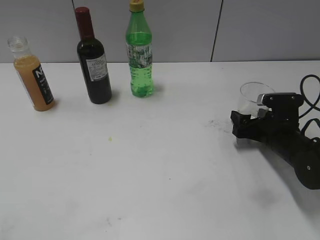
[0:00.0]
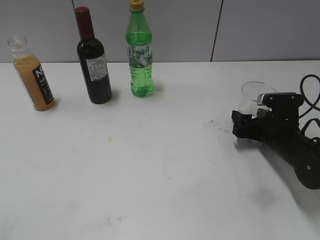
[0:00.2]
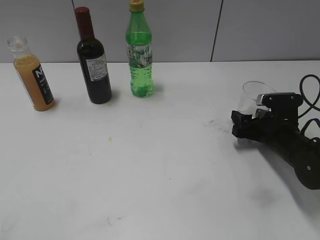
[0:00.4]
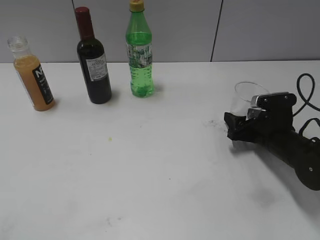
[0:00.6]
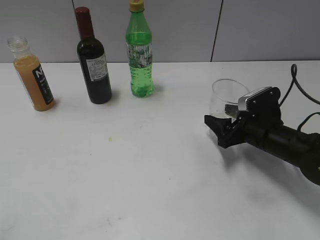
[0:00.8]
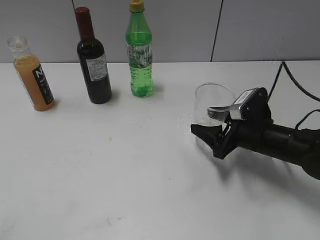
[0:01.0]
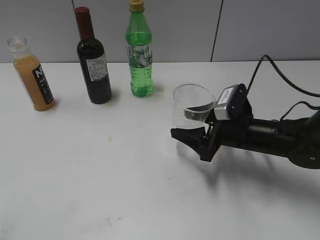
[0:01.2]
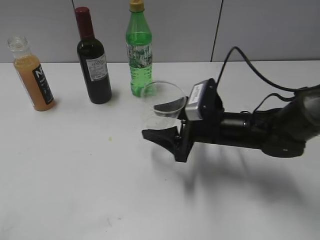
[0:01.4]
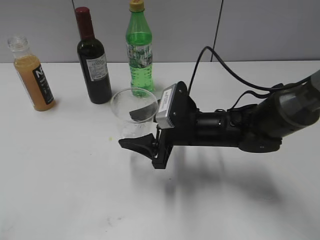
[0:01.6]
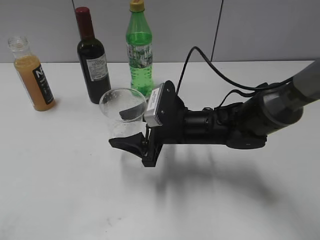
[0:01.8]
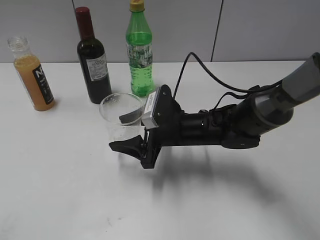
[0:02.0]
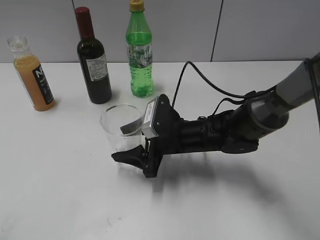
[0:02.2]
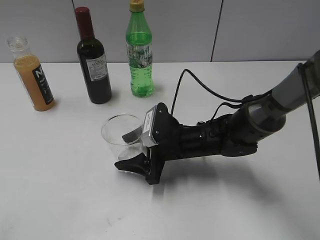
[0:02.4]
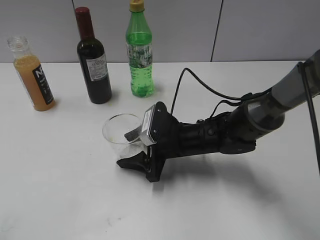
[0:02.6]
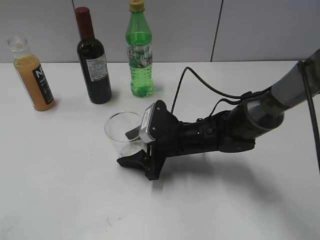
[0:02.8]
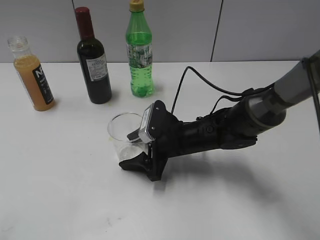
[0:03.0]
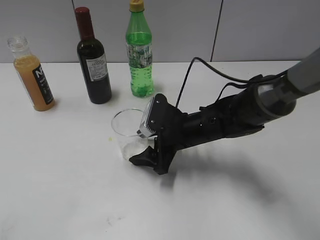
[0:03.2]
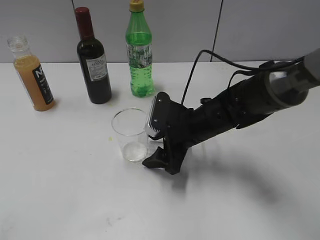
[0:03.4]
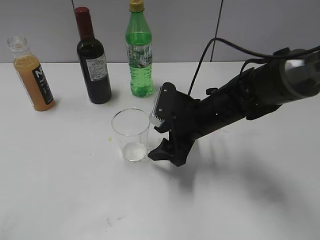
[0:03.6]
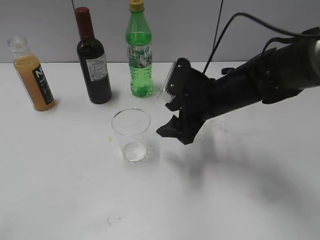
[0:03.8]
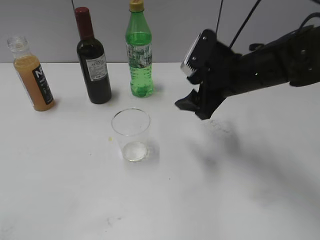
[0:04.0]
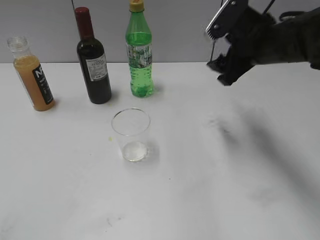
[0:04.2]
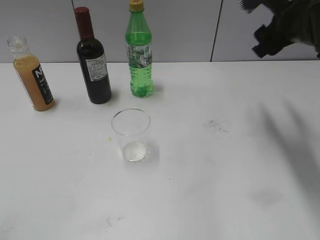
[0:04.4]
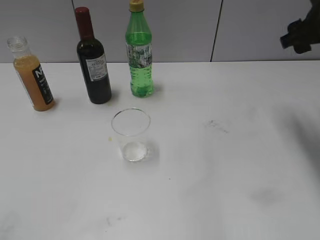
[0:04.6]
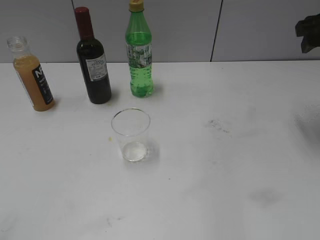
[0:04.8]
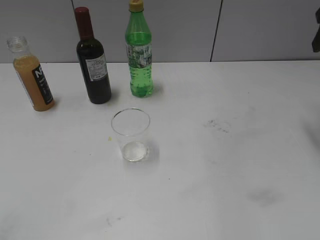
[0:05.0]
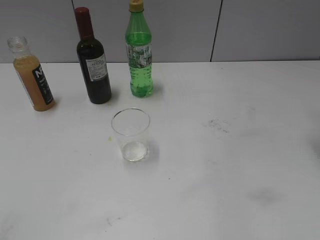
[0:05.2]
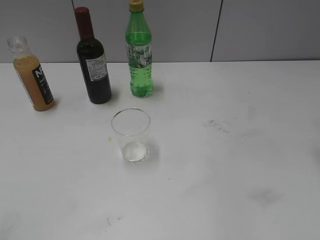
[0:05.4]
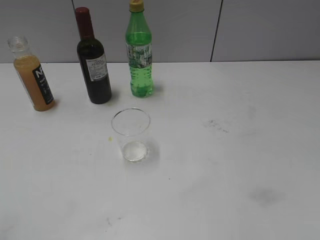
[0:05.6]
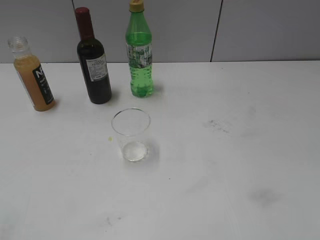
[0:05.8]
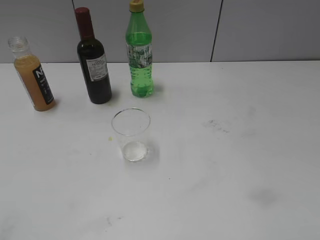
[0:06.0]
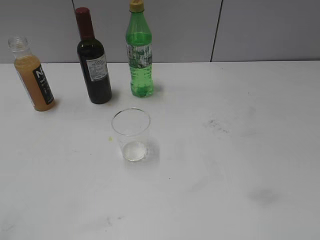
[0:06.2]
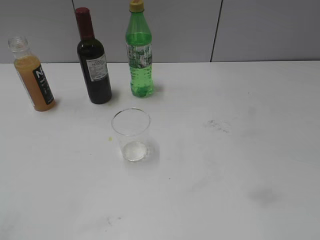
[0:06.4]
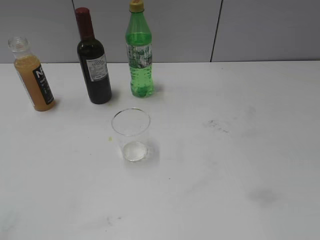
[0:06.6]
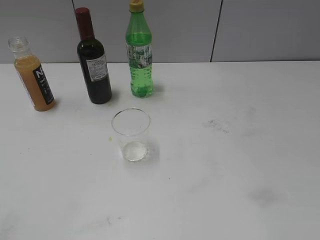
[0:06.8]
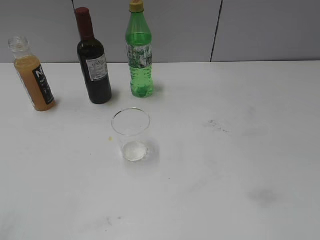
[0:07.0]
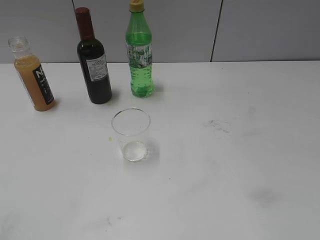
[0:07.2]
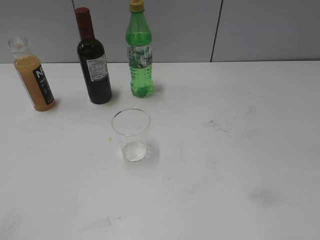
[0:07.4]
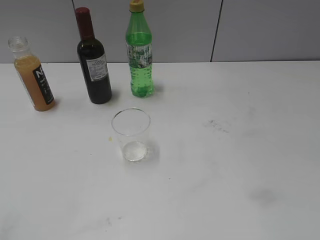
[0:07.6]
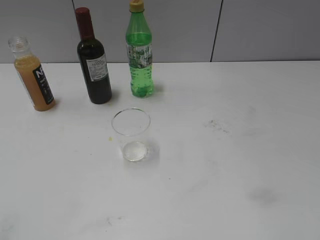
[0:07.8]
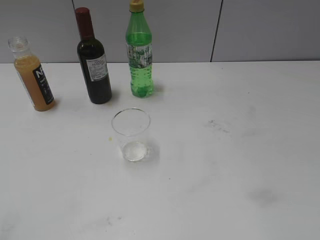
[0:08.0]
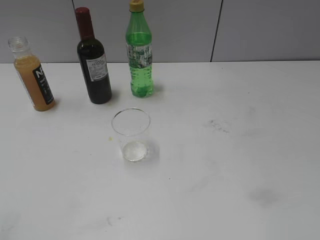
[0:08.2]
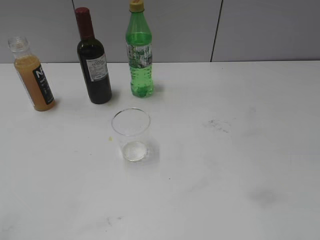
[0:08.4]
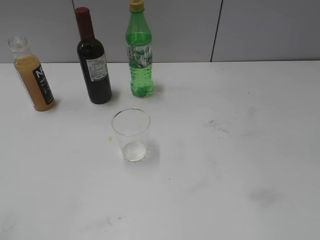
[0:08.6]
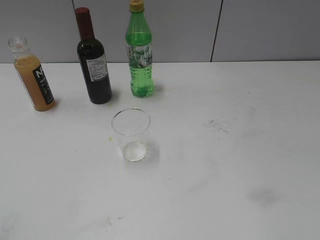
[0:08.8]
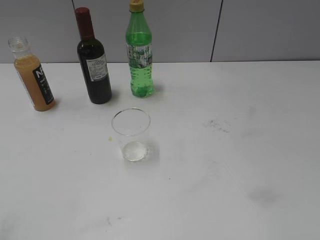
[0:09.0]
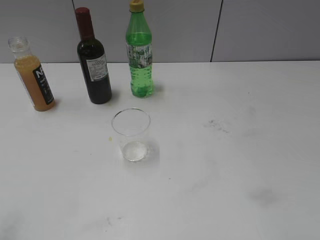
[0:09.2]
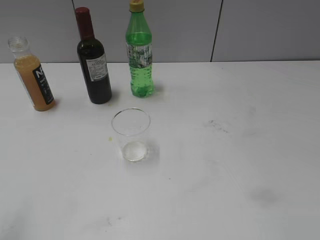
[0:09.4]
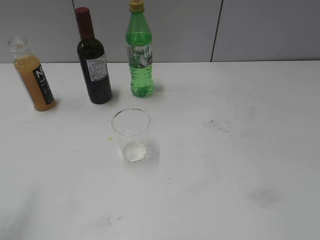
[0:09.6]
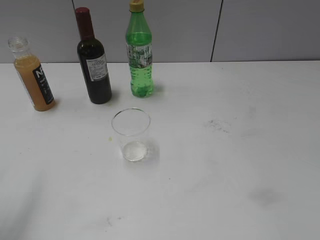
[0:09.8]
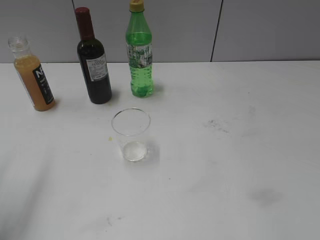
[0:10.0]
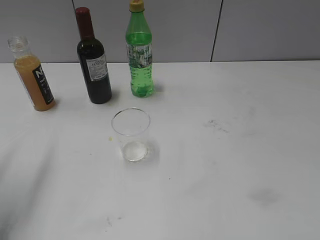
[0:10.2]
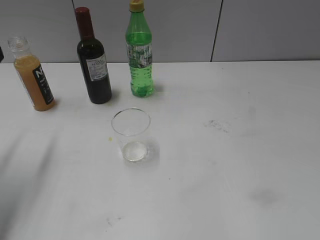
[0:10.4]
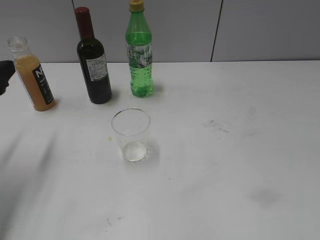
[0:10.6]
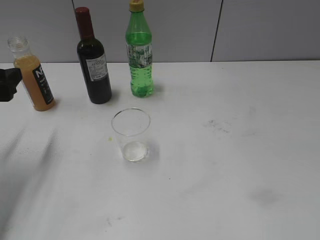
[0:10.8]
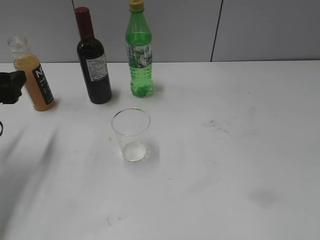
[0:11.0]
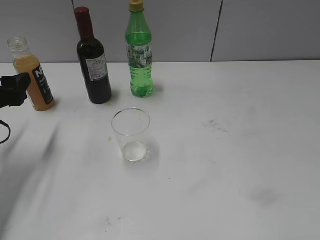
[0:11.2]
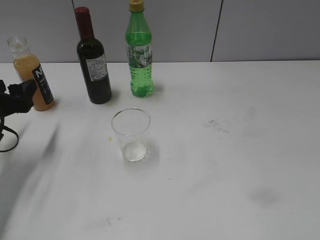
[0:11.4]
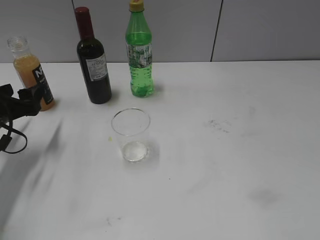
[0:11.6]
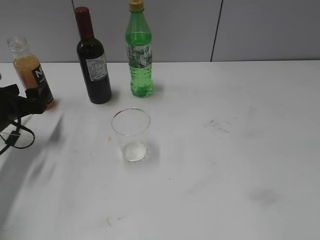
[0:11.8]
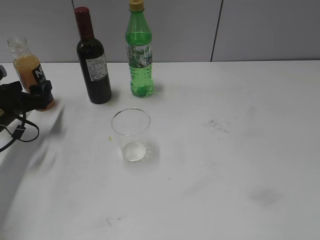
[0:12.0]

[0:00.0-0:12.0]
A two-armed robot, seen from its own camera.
Step, 0:00.4 to 0:03.4: Place the transparent cup on the table with right gripper.
0:00.0 to 0:01.6: The right gripper heads to the left, covering approximately 15 cm, and closes up.
0:01.6 to 0:03.0: The right gripper ends up some 5 cm from where it was, and opens up.
0:03.0 to 0:04.4: The right gripper is displaced upward and to the right by some 25 cm.
0:04.4 to 0:06.0: The right gripper is displaced backward and to the right by some 25 cm.
0:09.0 to 0:10.4: The left gripper goes roughly 20 cm forward.
0:10.4 to 0:12.0: The left gripper travels downward and forward by about 20 cm.

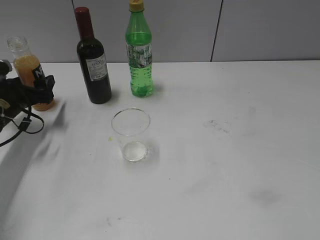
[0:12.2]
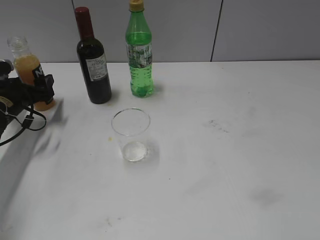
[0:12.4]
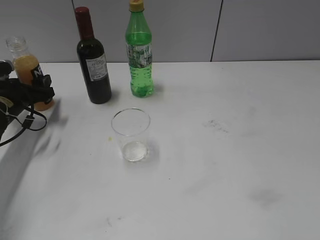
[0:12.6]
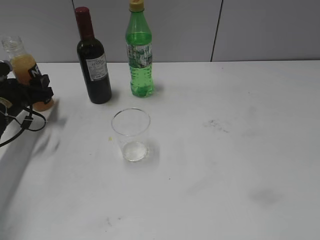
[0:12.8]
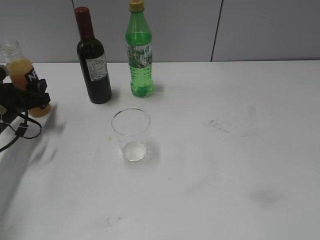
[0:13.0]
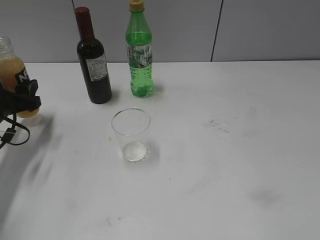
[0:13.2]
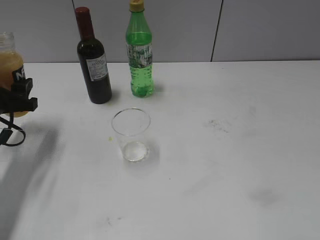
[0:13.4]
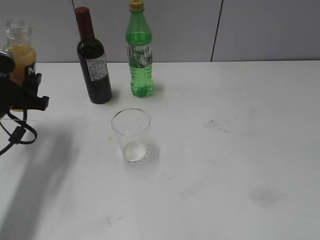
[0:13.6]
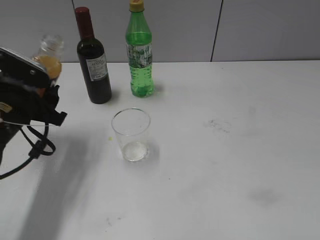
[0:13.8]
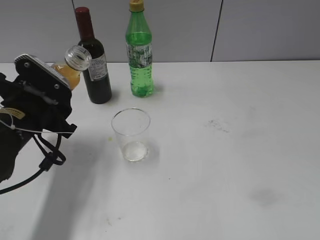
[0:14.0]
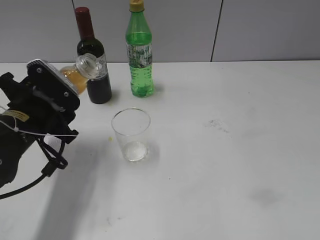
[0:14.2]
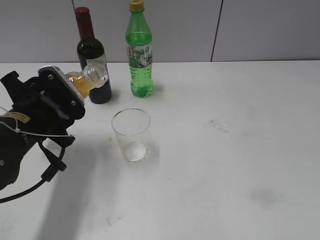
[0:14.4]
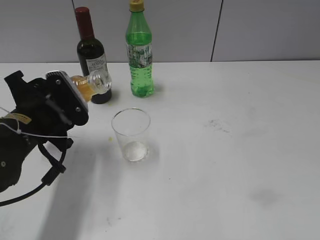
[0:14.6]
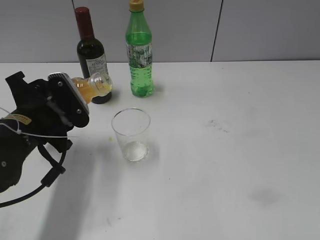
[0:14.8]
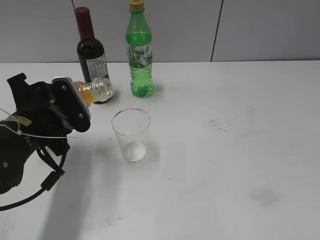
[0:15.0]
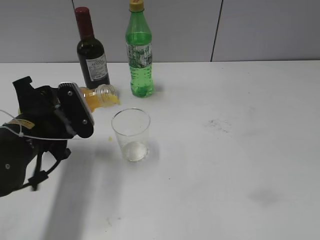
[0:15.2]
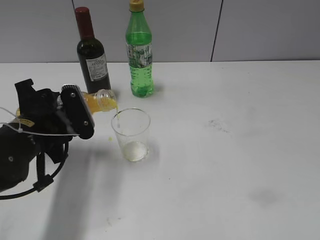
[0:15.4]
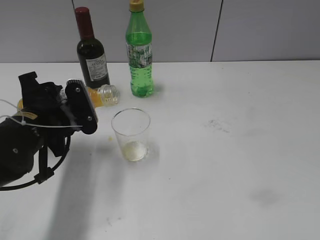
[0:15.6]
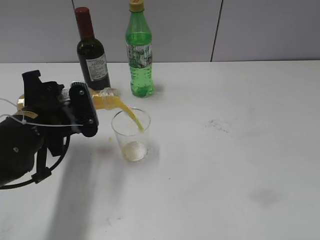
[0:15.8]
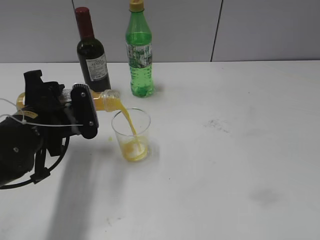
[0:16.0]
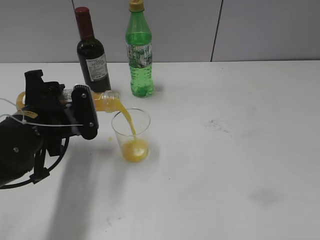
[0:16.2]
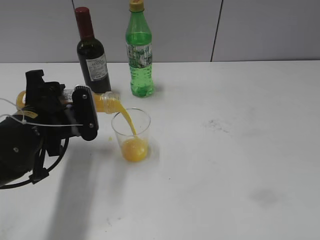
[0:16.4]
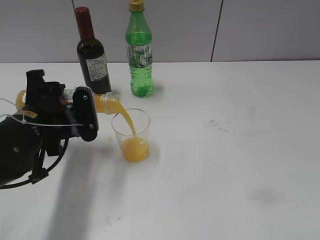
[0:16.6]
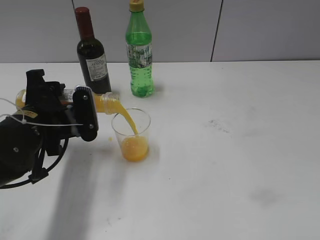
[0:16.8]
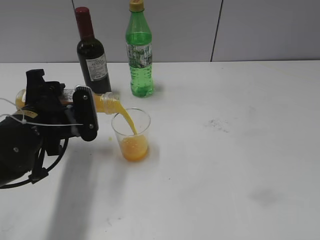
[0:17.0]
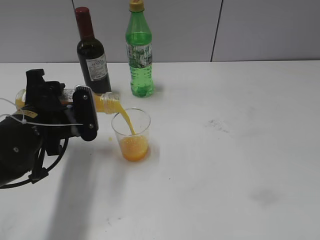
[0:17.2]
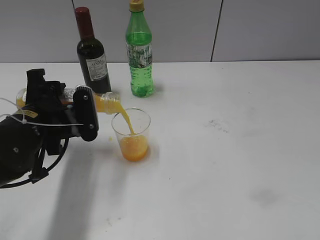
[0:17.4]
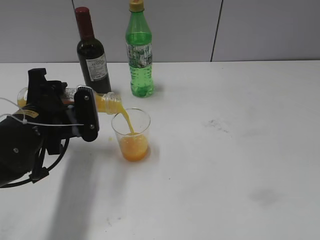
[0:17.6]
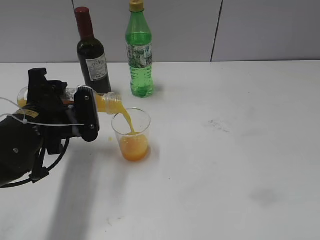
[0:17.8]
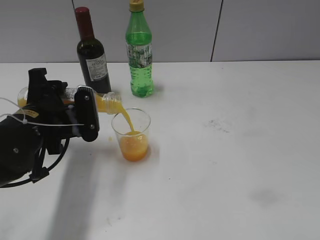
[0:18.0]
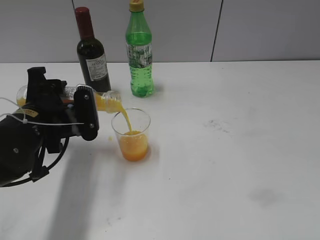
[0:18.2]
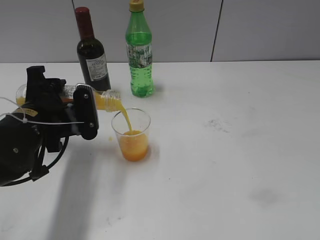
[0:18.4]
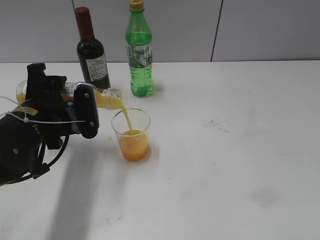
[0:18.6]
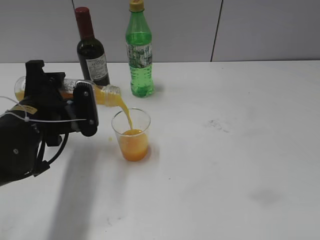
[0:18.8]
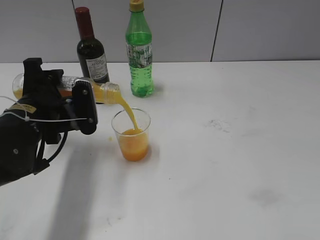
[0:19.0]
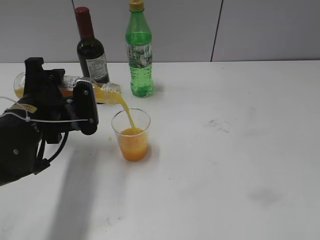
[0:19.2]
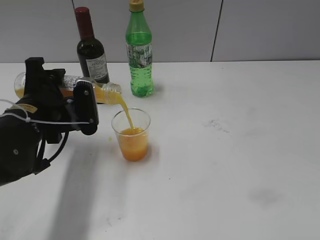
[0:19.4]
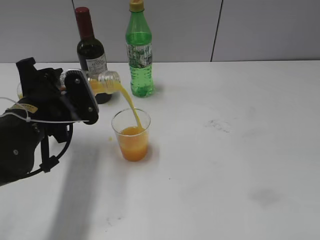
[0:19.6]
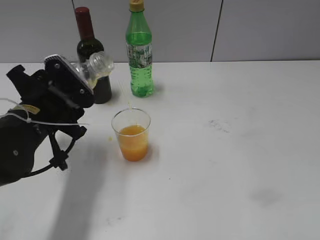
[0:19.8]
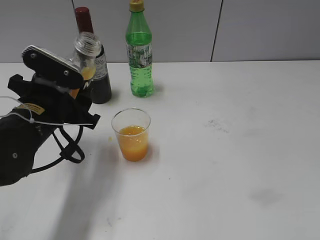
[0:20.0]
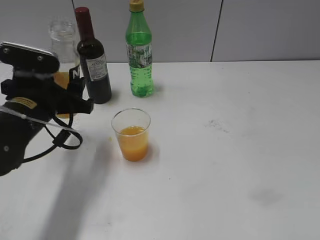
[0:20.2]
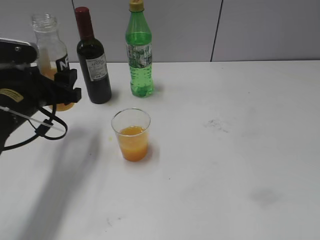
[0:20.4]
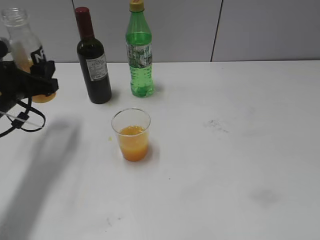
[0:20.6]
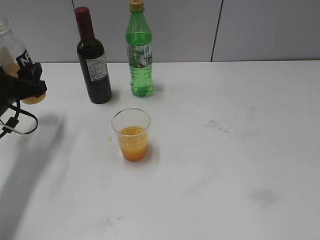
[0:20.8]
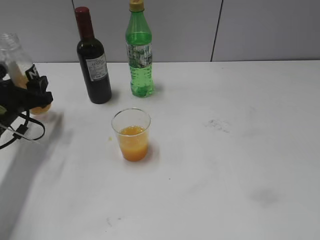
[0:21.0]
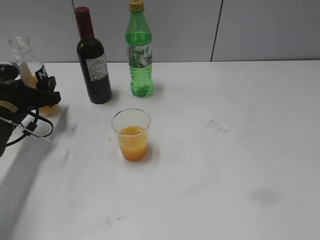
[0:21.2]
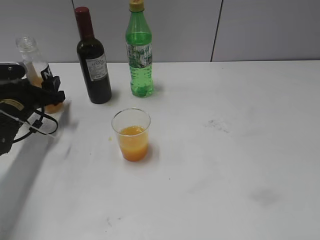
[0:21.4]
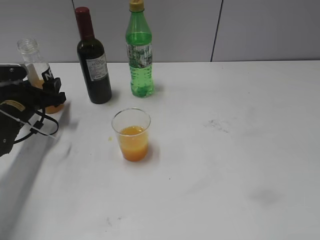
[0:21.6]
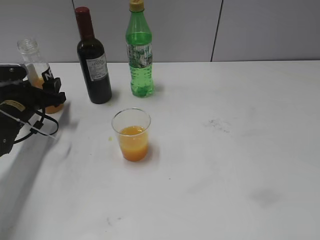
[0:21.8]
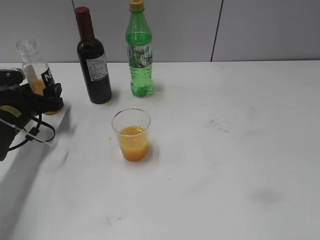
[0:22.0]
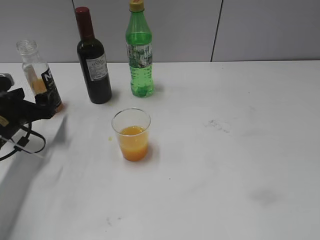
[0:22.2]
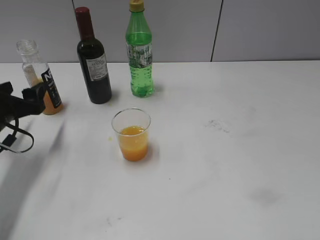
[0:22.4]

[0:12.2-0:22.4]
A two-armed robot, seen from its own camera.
Step, 0:12.8 to 0:19.8: Pour the orange juice from bottle to cup with left gripper.
Step, 0:20.0 to 0:21.8: Place the orange juice bottle on the table with left gripper.
0:12.2 to 0:13.6: The left gripper shifts some 10 cm backward and upward, and closes its fingers.
0:13.6 to 0:15.2: The left gripper moves to the right, some 10 cm.
0:15.2 to 0:16.6: The grippers move only a little.
0:16.6 to 0:18.0: Both grippers stay about where they are.
0:18.0 to 0:19.4: The grippers make only small movements.
0:19.4 to 0:21.0: The left gripper is displaced to the left, forward and downward by about 15 cm.
0:21.0 to 0:22.4: The left gripper opens.
